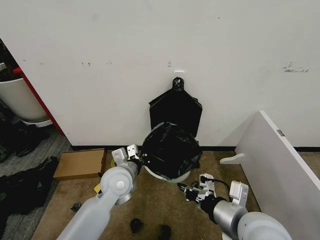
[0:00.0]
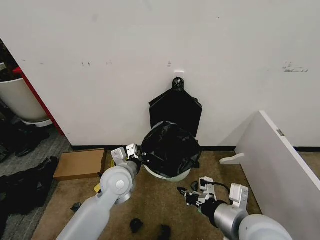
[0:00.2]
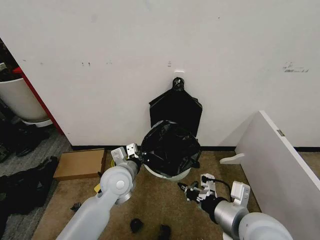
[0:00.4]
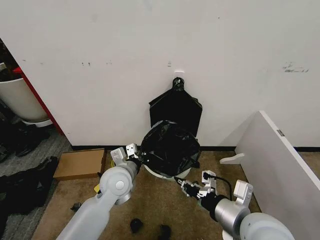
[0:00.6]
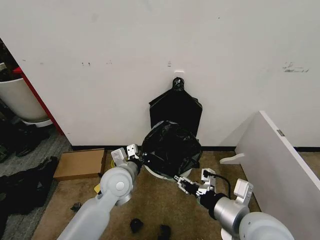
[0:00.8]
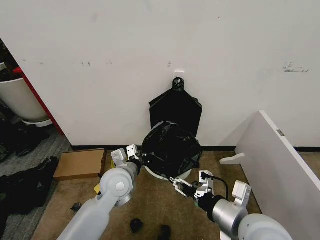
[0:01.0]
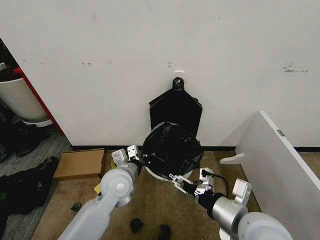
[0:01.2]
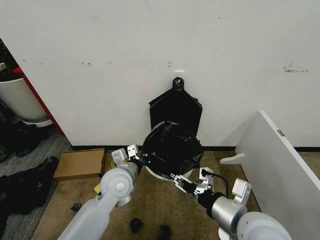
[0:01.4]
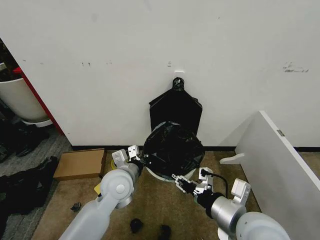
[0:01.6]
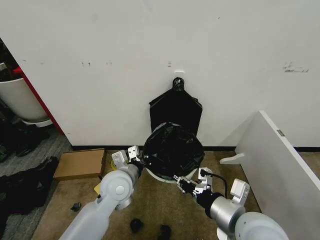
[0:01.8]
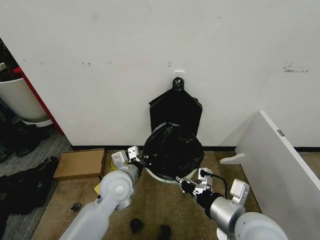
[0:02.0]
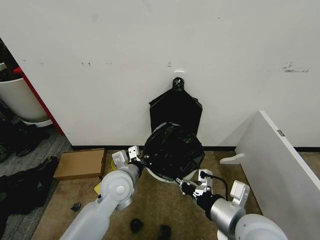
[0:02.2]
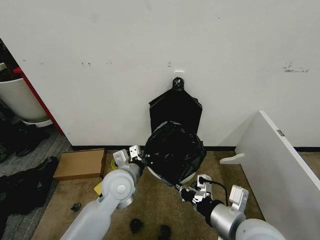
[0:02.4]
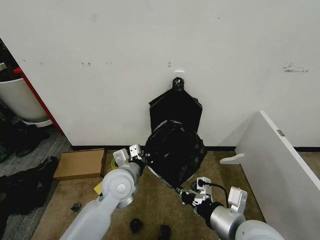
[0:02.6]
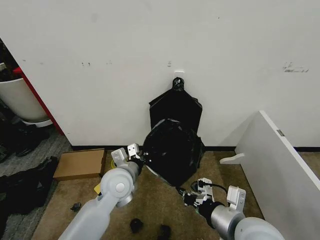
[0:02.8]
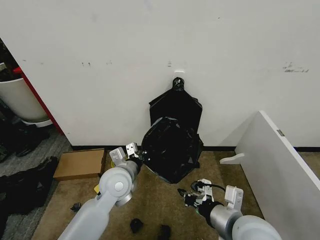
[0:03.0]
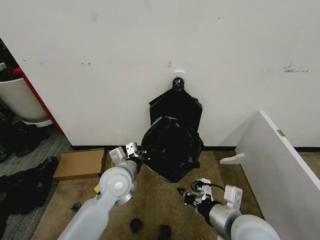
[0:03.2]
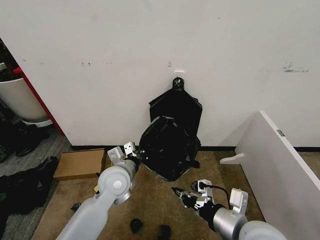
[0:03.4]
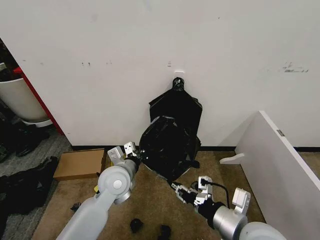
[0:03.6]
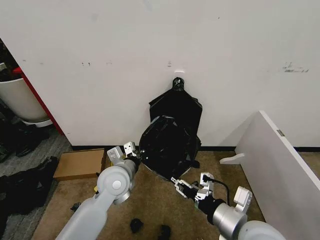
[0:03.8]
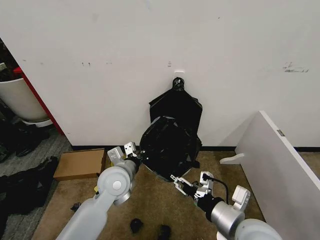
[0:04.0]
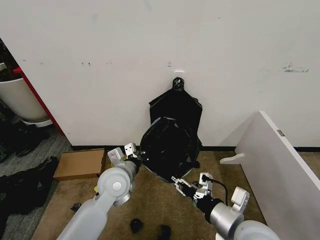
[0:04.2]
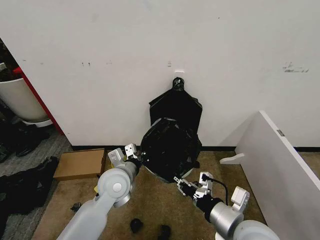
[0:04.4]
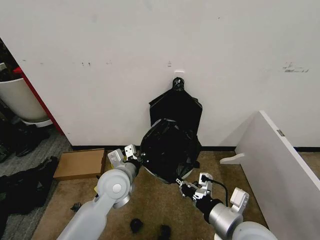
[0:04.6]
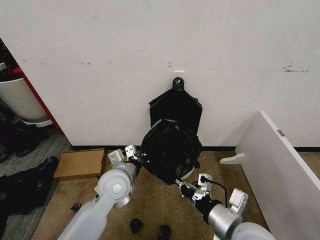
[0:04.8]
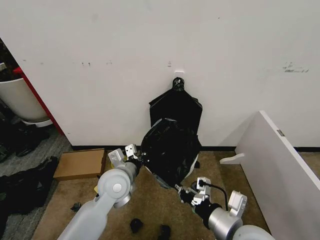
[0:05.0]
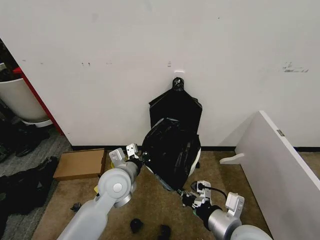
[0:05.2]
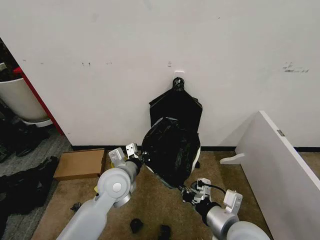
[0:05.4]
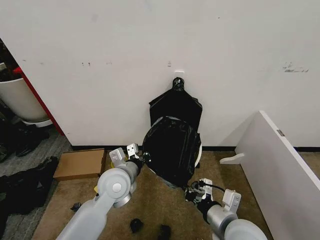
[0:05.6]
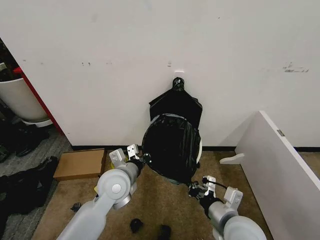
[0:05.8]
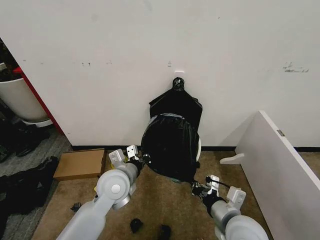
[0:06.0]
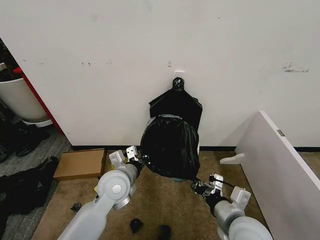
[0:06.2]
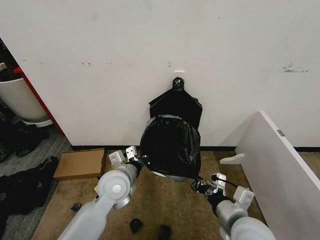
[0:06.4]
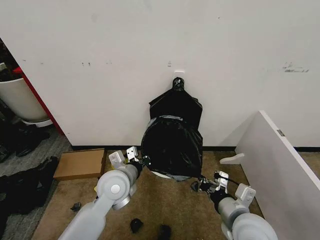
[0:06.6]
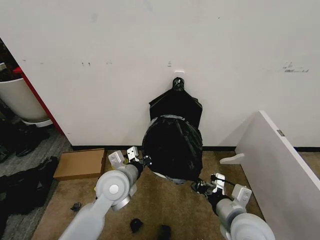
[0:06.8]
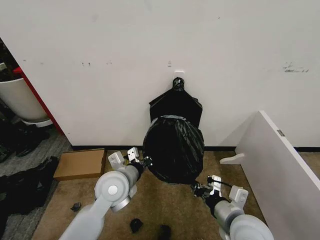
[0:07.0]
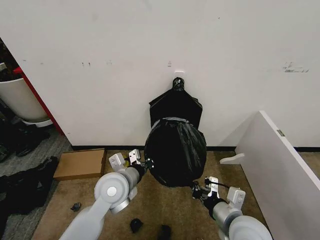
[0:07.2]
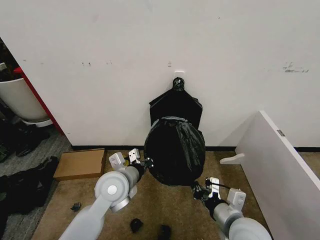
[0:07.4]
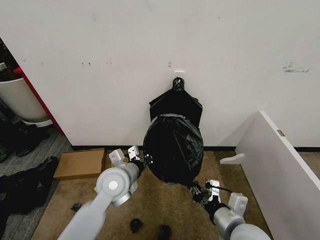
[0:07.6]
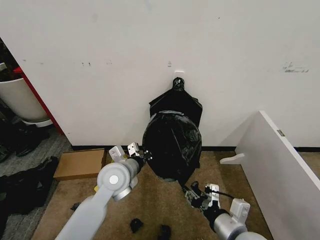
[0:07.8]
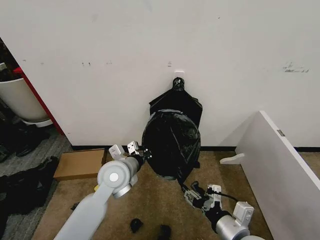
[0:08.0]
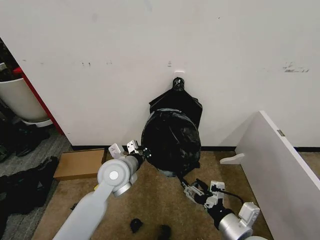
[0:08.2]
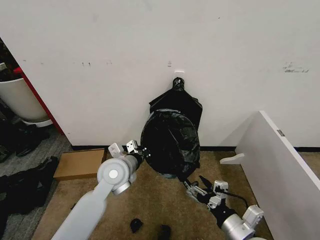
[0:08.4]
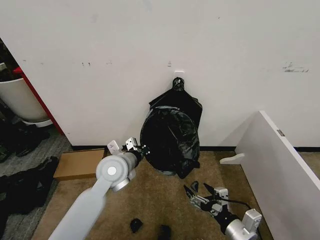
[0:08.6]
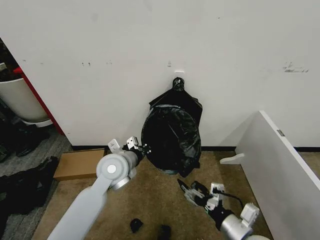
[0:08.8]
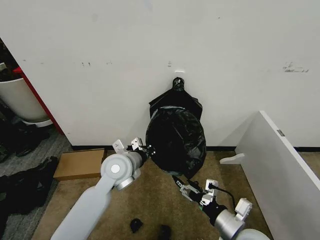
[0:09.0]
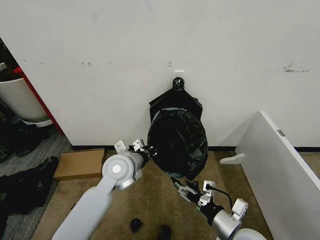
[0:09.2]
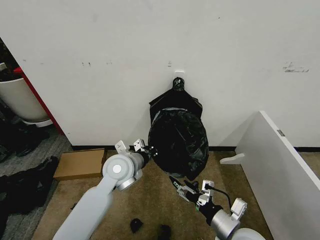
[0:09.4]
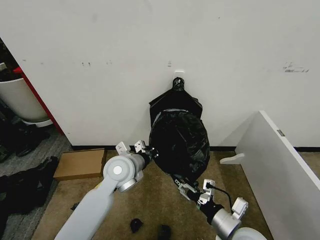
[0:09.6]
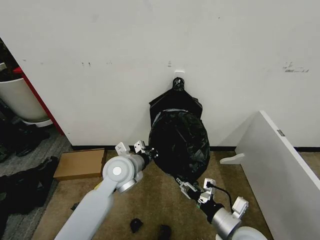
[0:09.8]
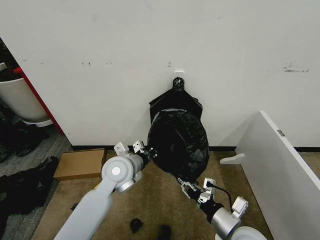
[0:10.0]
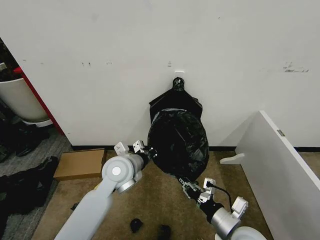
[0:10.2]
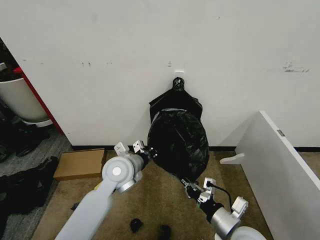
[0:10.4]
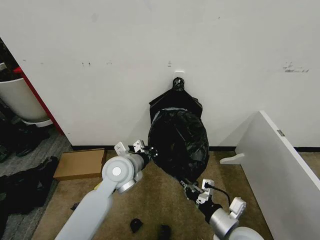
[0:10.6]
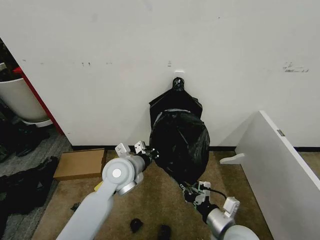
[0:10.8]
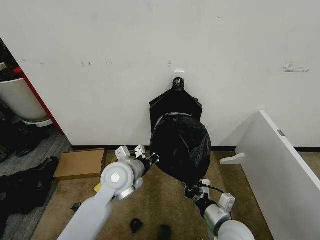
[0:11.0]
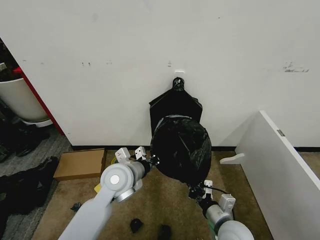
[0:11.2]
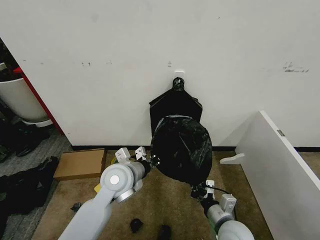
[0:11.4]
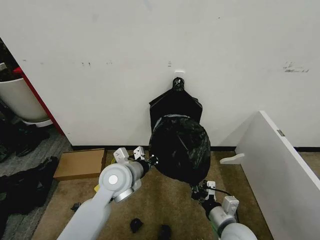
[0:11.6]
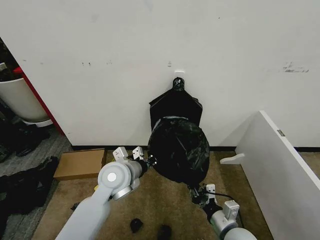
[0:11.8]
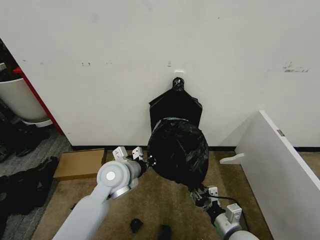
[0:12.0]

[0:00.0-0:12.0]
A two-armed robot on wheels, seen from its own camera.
Task of the whole recording: Place the garbage bag over the trash bin.
0:00.0 to 0:01.6: The right gripper opens up.
0:01.6 to 0:03.0: The right gripper closes its fingers.
0:03.0 to 0:04.4: The right gripper opens, then closes again.
0:04.4 to 0:06.0: The right gripper is displaced downward by approximately 5 cm.
0:06.0 to 0:07.6: The grippers move only a little.
0:07.6 to 0:09.0: The right gripper opens up.
0:09.0 to 0:10.4: The right gripper closes up.
0:10.4 to 0:12.0: The right gripper goes about 5 cm downward, and opens up.

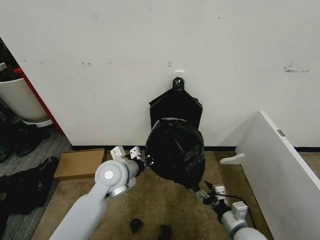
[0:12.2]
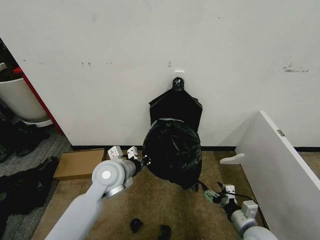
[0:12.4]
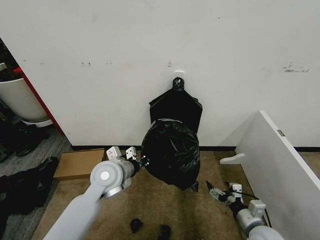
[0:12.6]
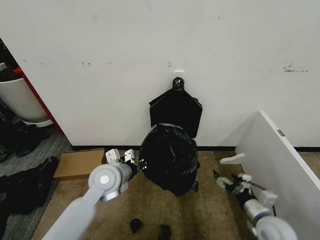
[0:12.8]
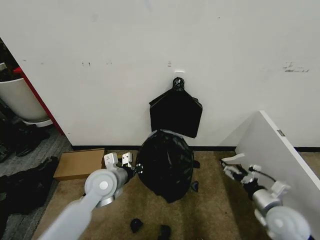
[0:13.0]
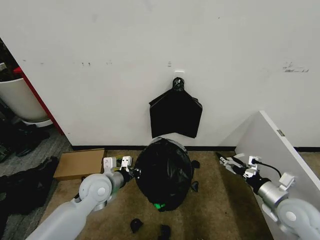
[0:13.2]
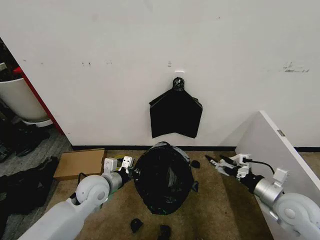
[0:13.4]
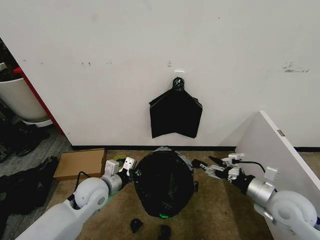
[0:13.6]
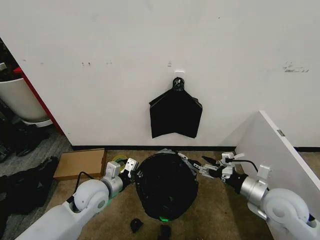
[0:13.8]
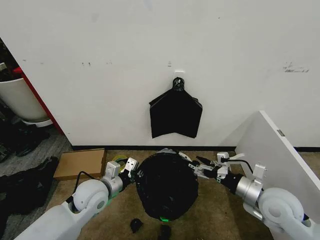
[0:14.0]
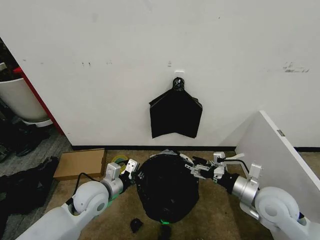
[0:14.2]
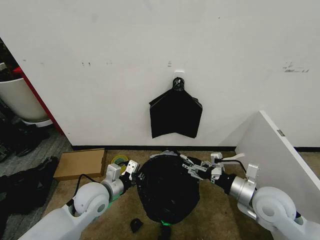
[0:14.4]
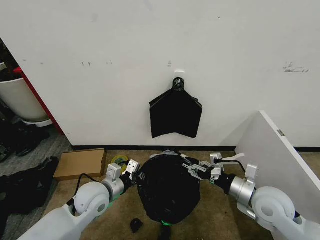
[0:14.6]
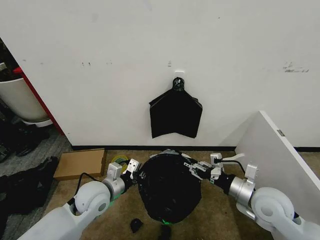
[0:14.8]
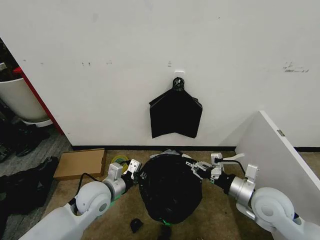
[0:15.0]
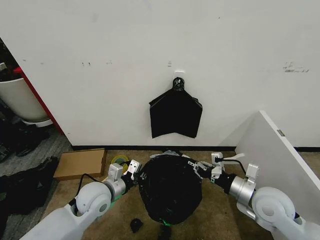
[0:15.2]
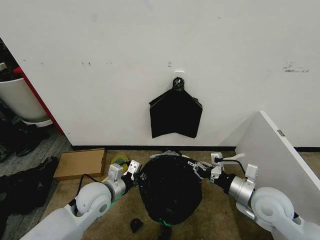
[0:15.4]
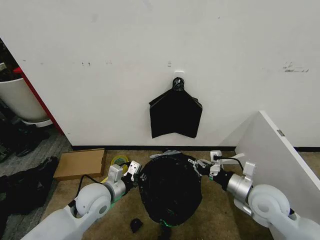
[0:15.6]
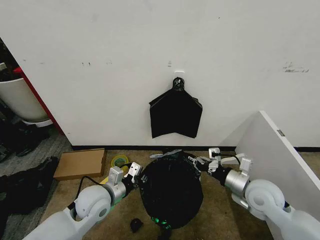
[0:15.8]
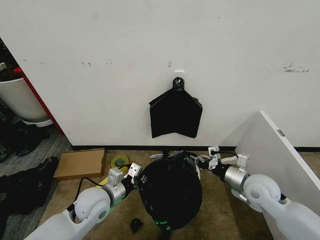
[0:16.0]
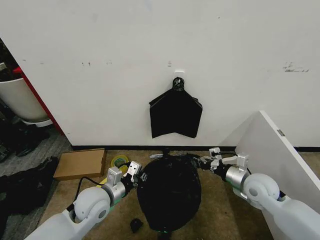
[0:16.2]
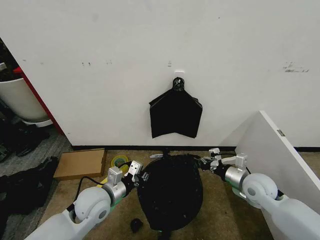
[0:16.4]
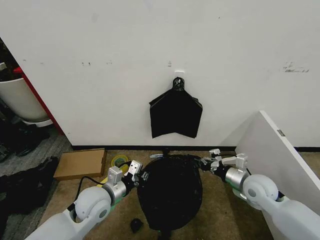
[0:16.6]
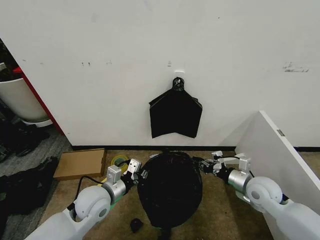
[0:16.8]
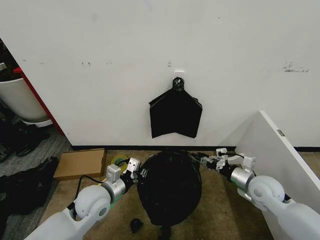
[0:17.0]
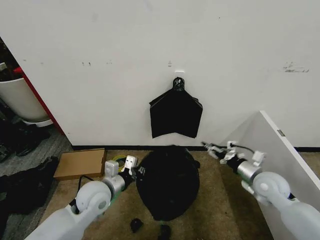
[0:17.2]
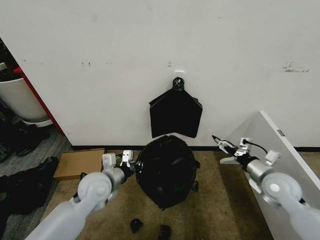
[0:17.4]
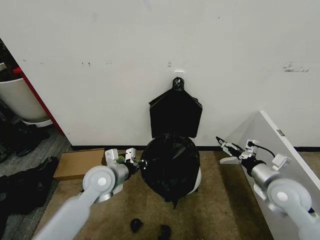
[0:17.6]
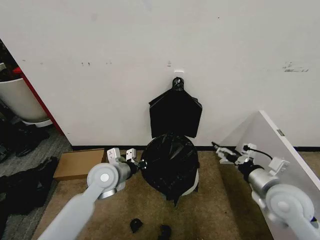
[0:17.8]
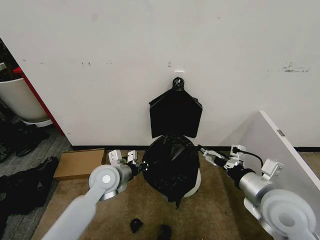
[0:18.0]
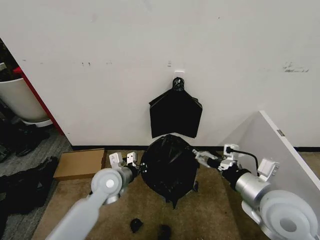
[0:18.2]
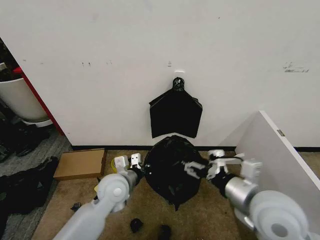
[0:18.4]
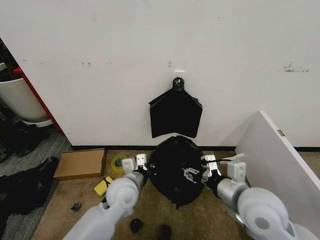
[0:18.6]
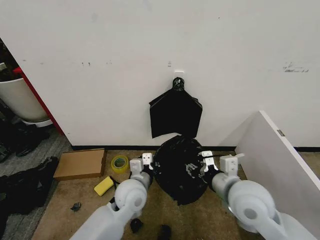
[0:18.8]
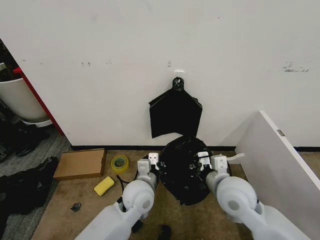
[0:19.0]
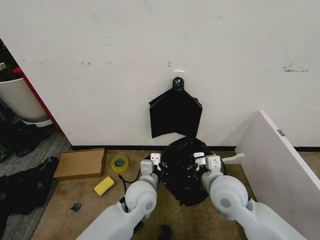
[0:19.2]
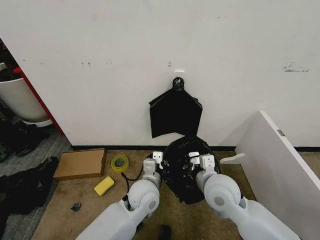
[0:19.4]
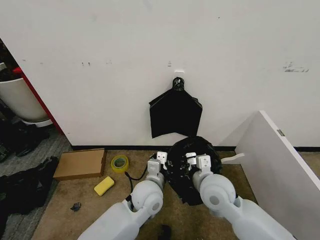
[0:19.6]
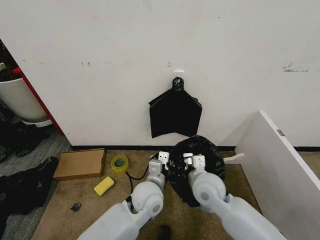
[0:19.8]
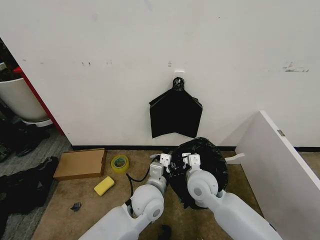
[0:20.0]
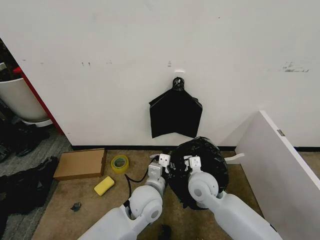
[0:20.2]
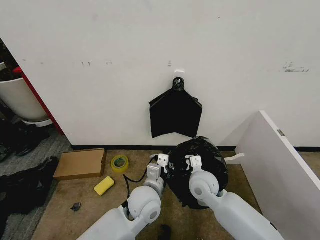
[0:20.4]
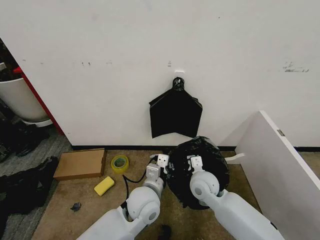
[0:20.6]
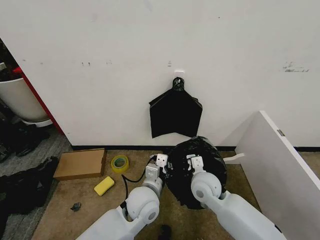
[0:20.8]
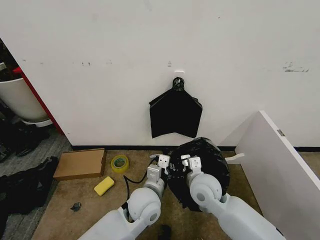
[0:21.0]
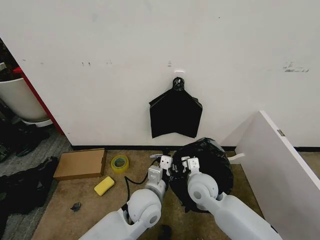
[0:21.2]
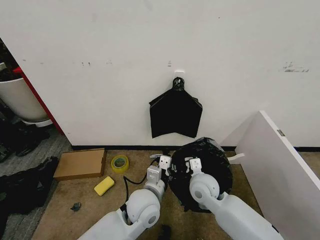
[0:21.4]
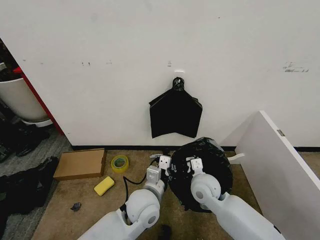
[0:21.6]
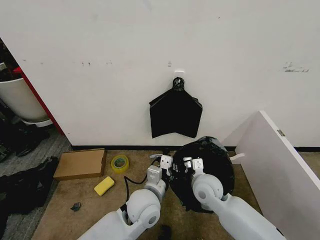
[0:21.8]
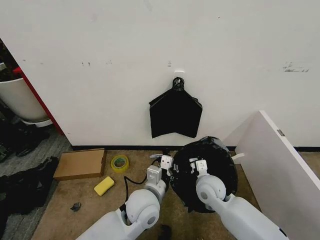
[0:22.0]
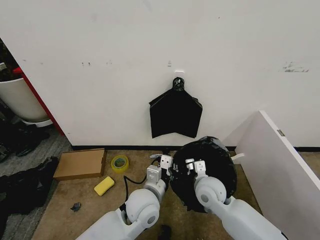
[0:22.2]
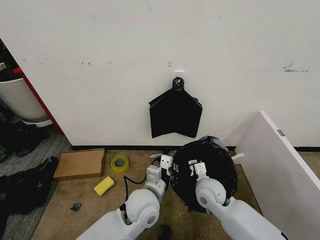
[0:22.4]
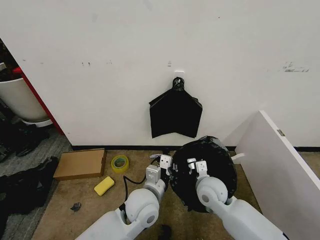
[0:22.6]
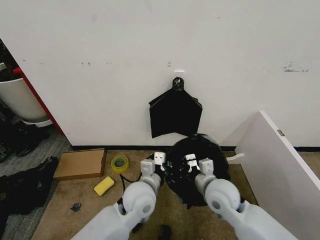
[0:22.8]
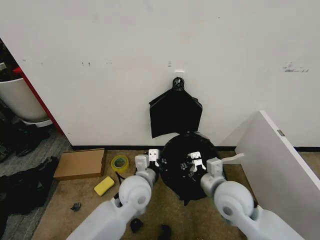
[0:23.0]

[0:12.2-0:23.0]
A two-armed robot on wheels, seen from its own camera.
Task of the whole recording: Place the garbage bag over the trash bin.
0:12.2 to 0:13.8: The right gripper is displaced upward and forward by about 15 cm, and opens up. The left gripper heads to the left and downward, covering approximately 10 cm.
0:13.8 to 0:15.2: The right gripper closes.
0:15.2 to 0:16.8: The right gripper travels forward and downward by roughly 10 cm.
0:16.8 to 0:18.4: The left gripper travels to the right by about 5 cm. Meanwhile the right gripper shifts roughly 20 cm upward, backward and to the left, and opens.
0:18.4 to 0:20.0: The left gripper travels to the right by approximately 10 cm. The right gripper moves downward, forward and to the left, about 20 cm, and closes up.
0:20.0 to 0:21.4: The grippers stay close to where they were, moving slightly.
0:21.4 to 0:23.0: The right gripper goes about 10 cm upward and backward.
